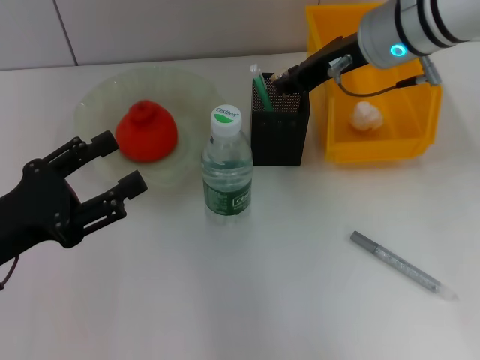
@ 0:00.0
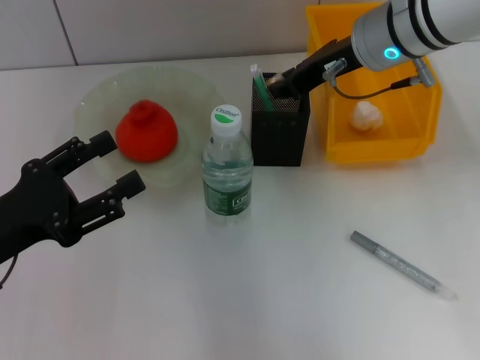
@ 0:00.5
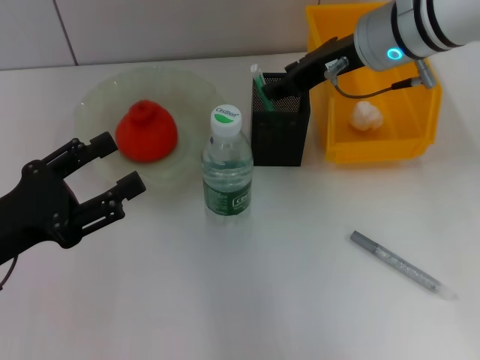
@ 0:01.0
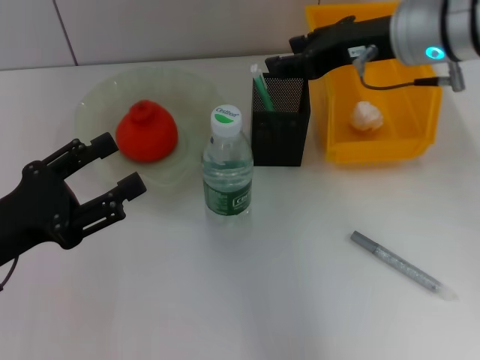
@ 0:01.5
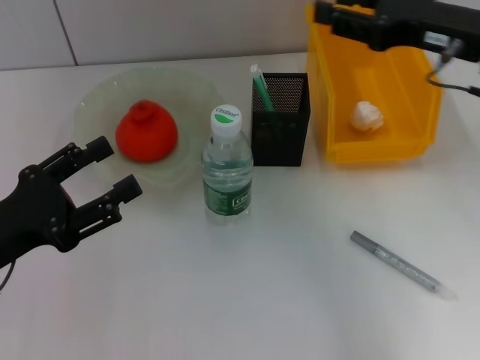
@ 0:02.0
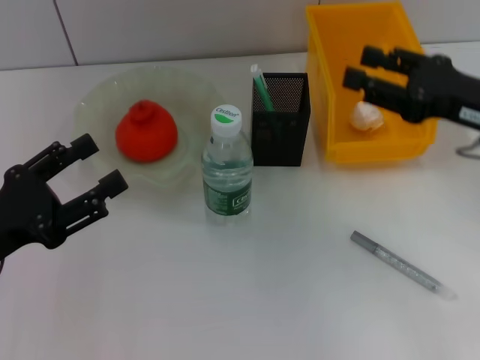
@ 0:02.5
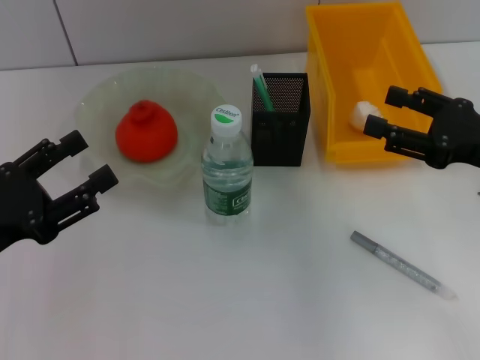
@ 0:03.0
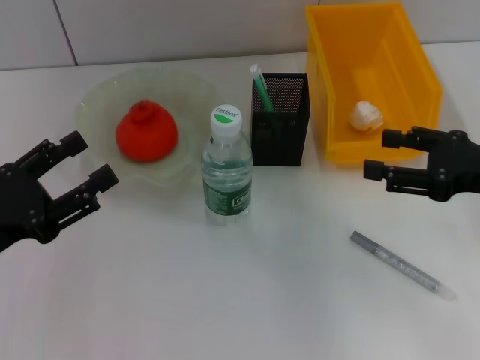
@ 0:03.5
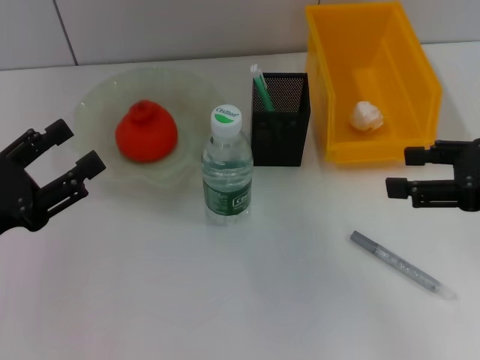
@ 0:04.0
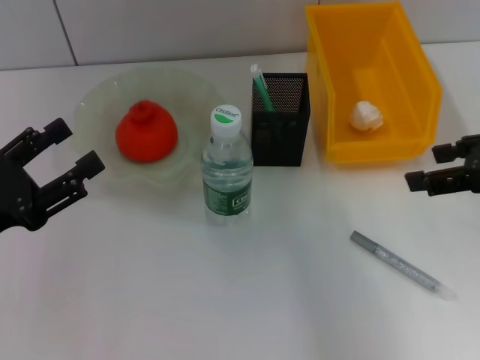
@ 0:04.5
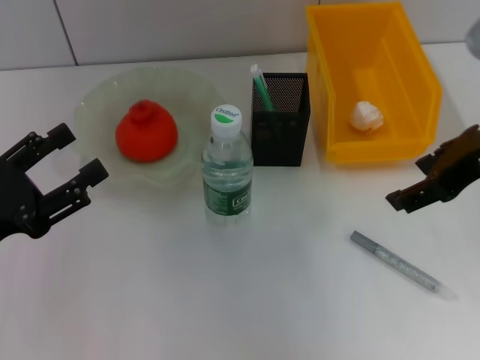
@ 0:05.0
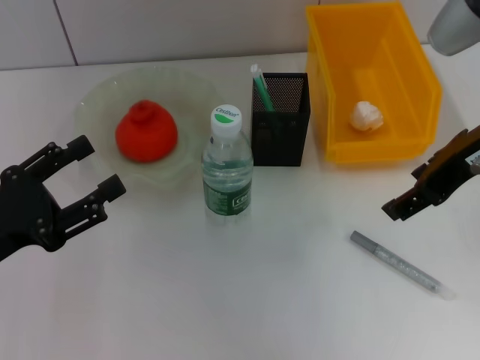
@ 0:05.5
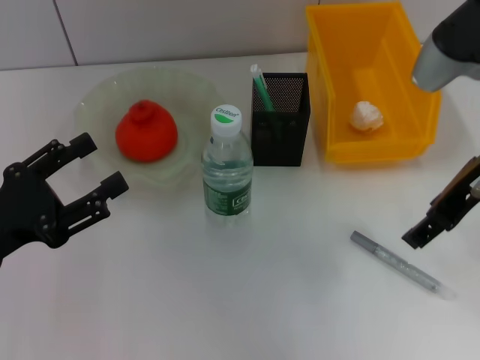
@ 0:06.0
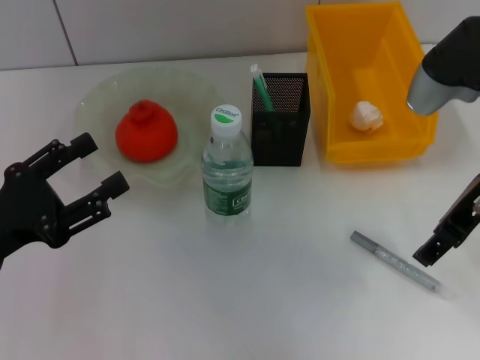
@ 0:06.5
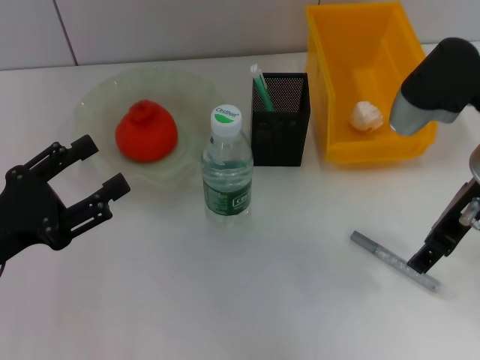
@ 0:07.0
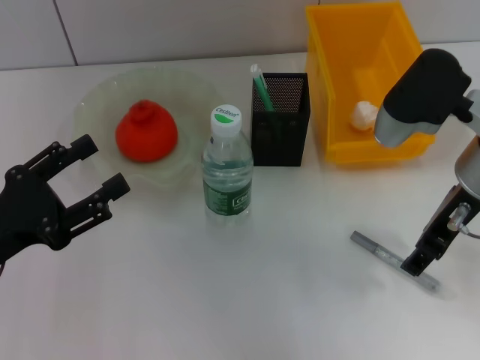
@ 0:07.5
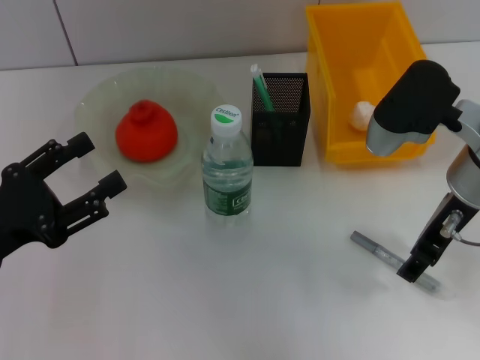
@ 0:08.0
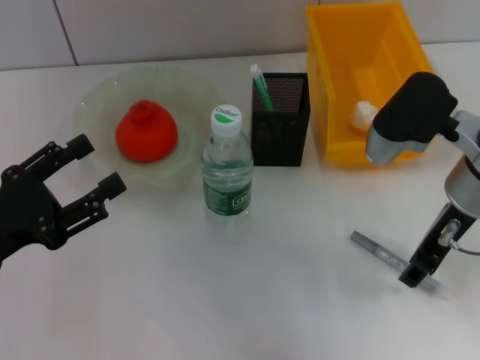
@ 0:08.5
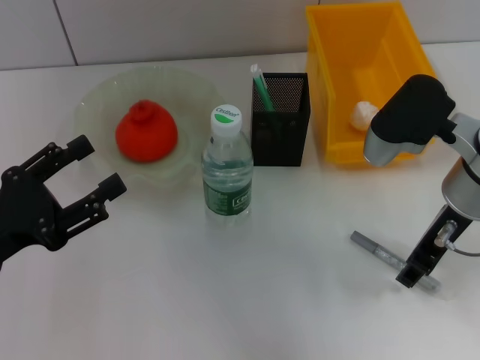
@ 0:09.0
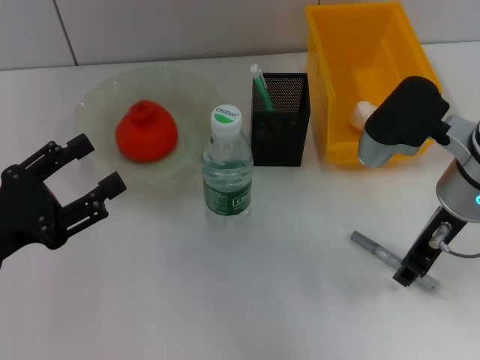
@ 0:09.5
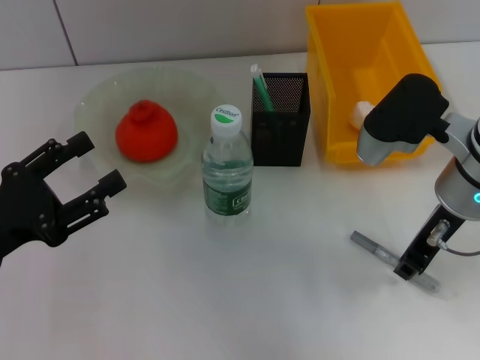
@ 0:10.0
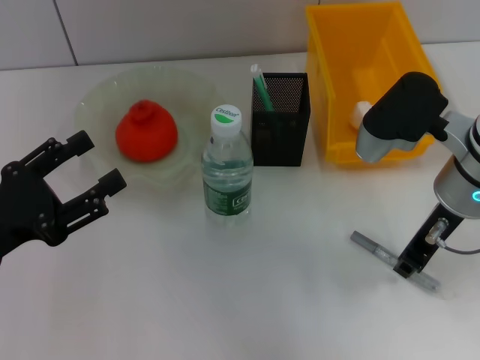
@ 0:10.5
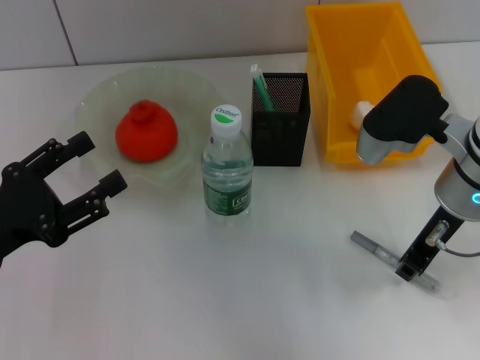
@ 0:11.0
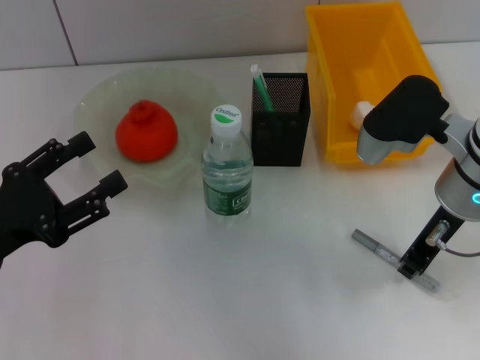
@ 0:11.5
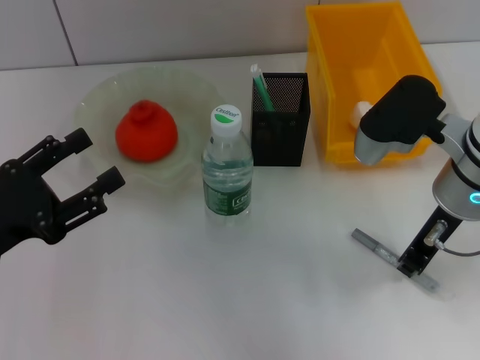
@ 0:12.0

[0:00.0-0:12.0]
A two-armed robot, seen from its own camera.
0:00.0 to 0:02.0: The right gripper travels to the right and backward by roughly 10 cm, and opens its fingers.
0:02.0 to 0:04.0: The right gripper goes some 10 cm backward and to the right.
0:04.0 to 0:06.0: The right gripper is displaced to the left and forward by some 10 cm.
0:06.0 to 0:08.0: The right gripper is displaced downward by approximately 5 cm.
0:08.0 to 0:10.0: The right gripper closes.
0:10.0 to 0:12.0: The two grippers keep their place.

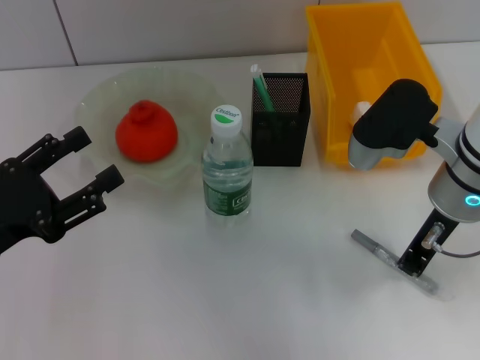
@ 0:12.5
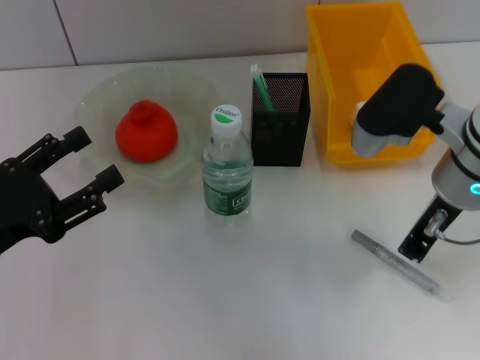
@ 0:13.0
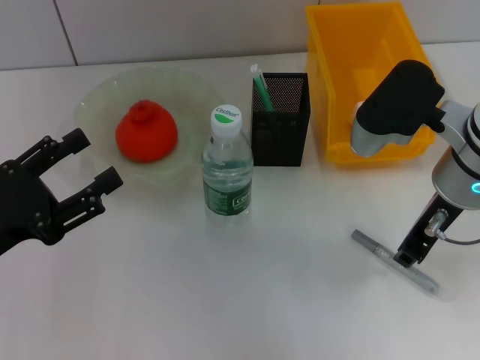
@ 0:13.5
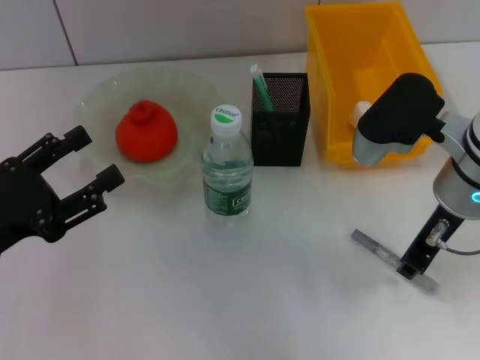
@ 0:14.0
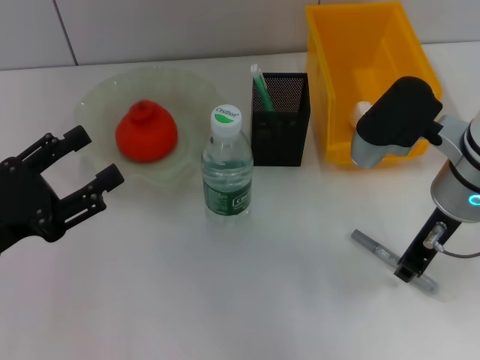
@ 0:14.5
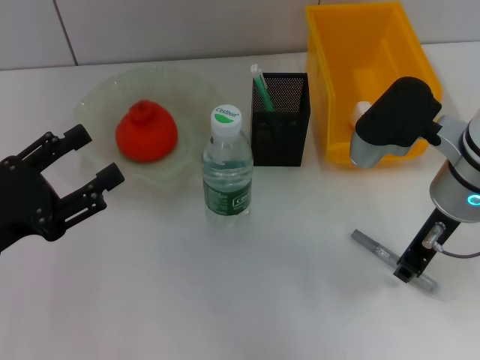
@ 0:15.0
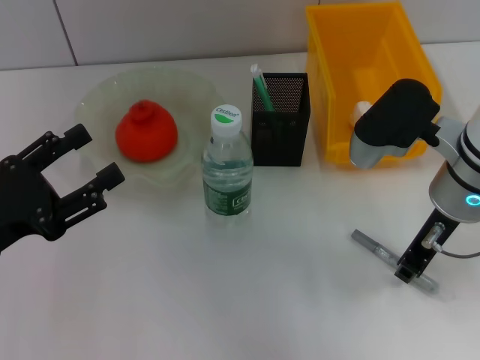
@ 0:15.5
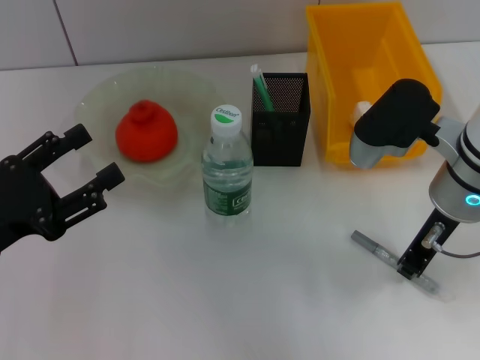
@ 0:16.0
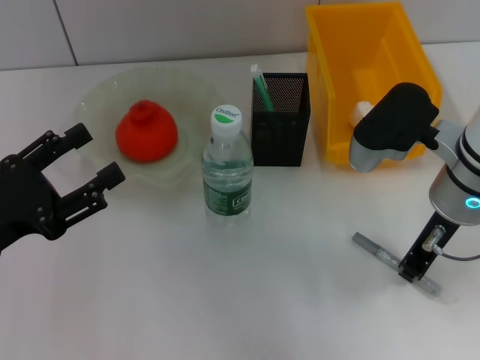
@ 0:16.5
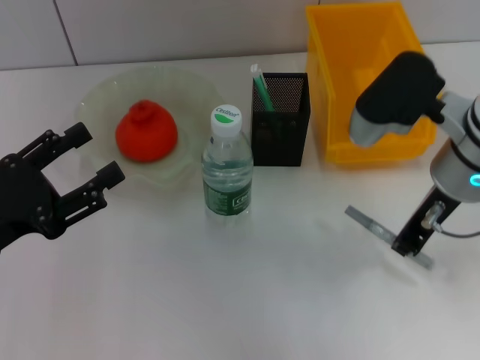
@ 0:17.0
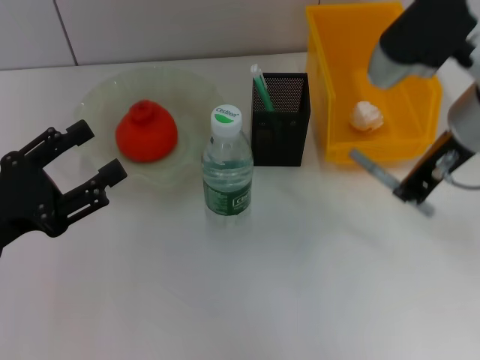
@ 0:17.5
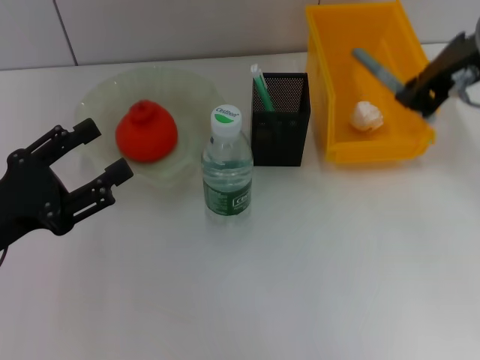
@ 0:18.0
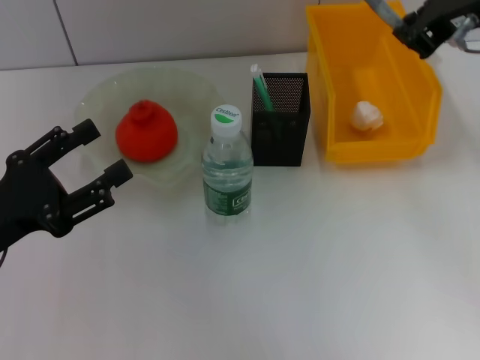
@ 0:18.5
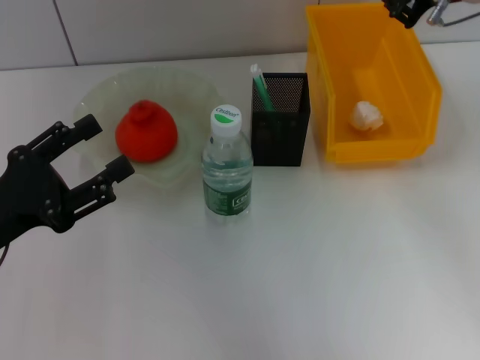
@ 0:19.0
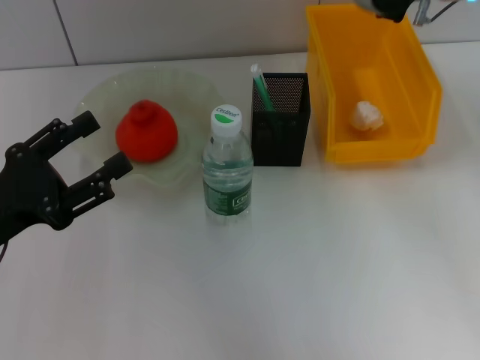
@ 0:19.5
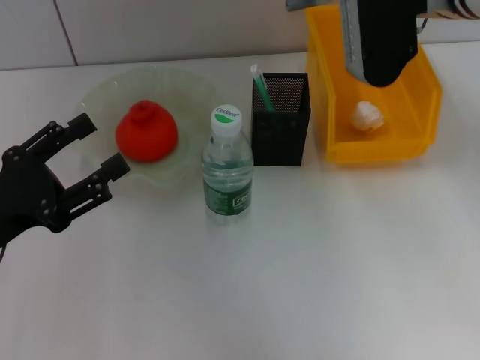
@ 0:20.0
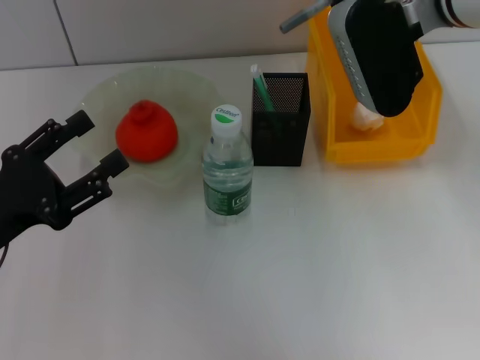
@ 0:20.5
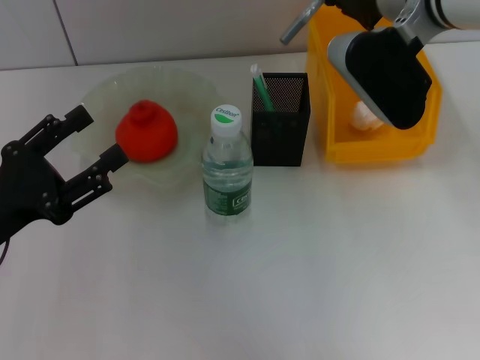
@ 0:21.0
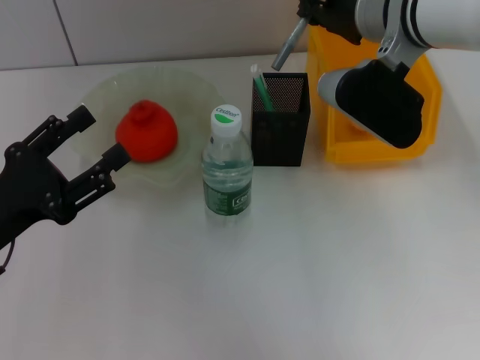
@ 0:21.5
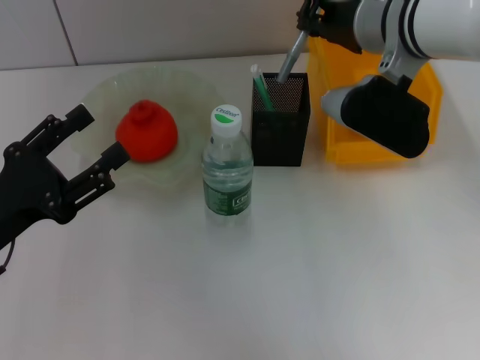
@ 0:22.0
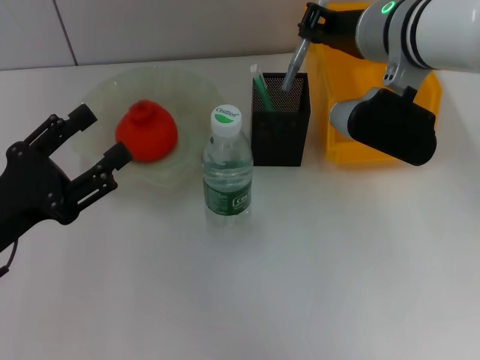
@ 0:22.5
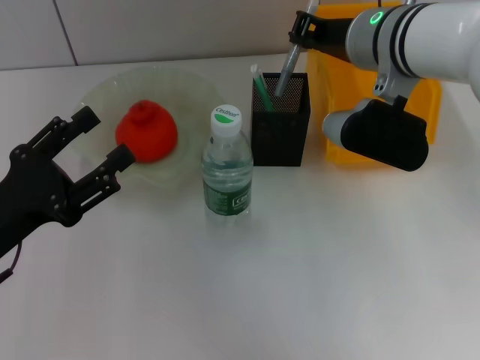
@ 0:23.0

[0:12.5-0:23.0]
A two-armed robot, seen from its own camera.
Step, 0:12.5 to 0:16.5: Grab the gray glue with the right hand.
0:12.5 to 0:14.5: There are only small adjustments of the grippers.
0:14.5 to 0:16.5: Both grippers stay about where they are.
0:16.5 to 0:19.0: The right gripper goes some 15 cm upward and forward.
0:19.0 to 0:21.0: The right gripper travels to the left by approximately 5 cm.

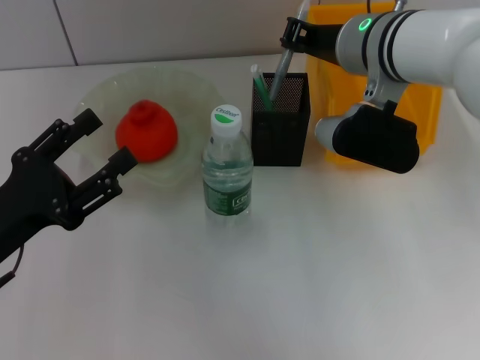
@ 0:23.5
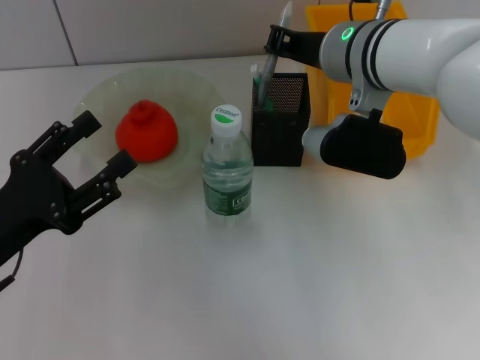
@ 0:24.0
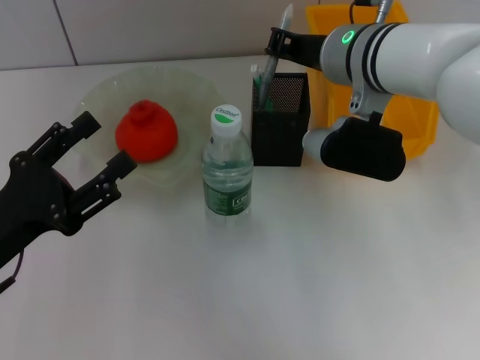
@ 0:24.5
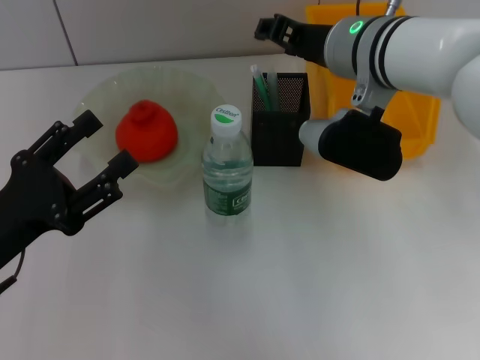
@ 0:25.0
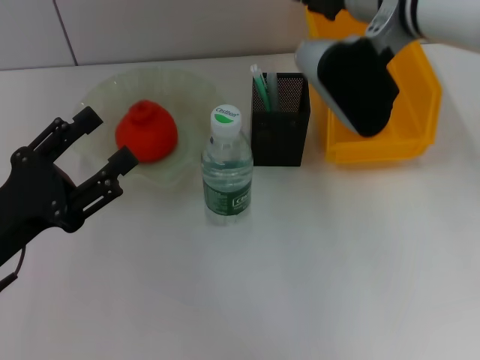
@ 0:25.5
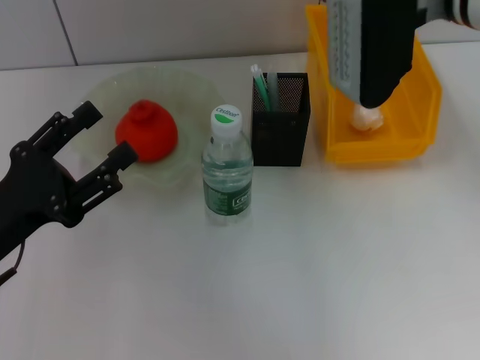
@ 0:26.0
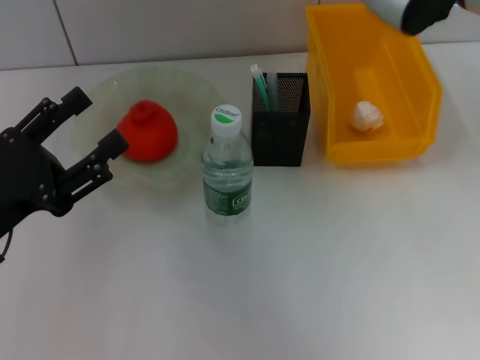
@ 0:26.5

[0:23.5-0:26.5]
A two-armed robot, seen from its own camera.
0:23.5 to 0:25.0: The right gripper opens.
0:25.0 to 0:26.5: The right gripper goes roughly 10 cm upward and to the right, and opens its fingers.
